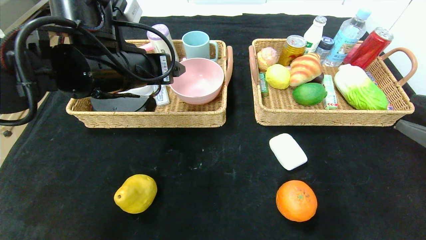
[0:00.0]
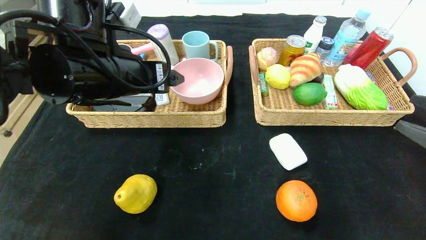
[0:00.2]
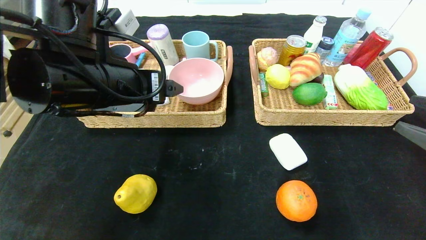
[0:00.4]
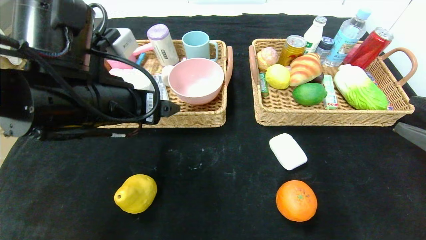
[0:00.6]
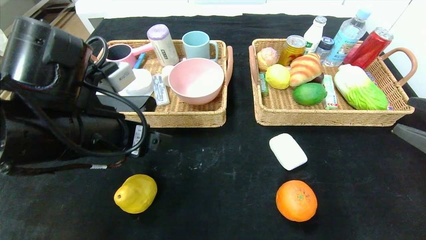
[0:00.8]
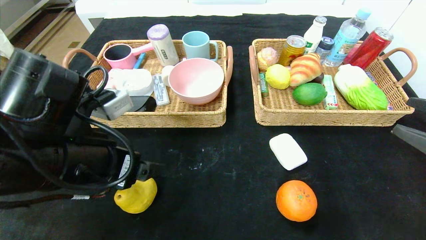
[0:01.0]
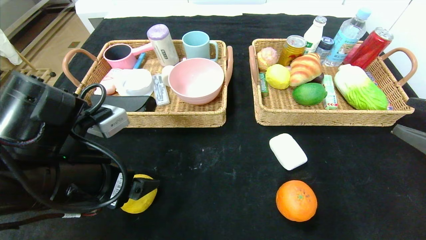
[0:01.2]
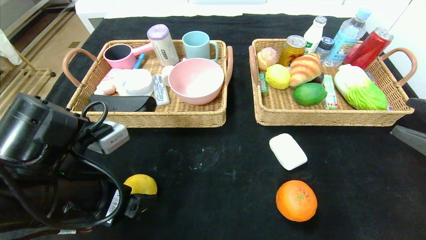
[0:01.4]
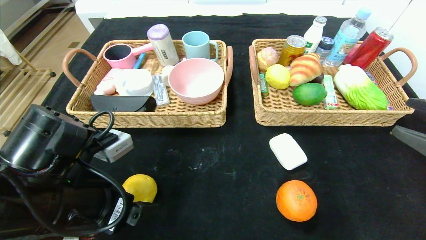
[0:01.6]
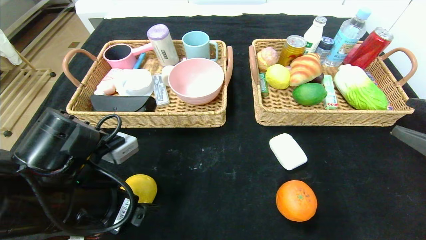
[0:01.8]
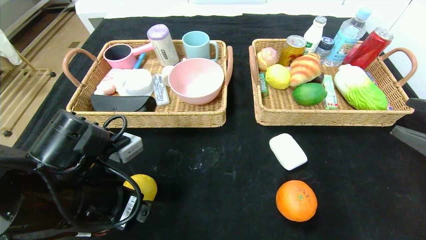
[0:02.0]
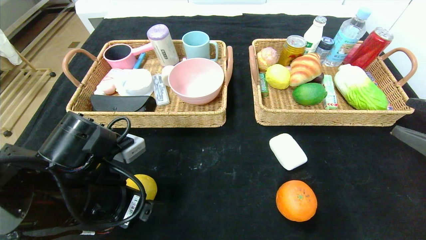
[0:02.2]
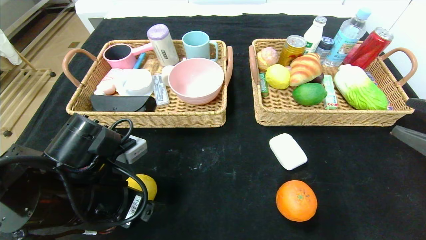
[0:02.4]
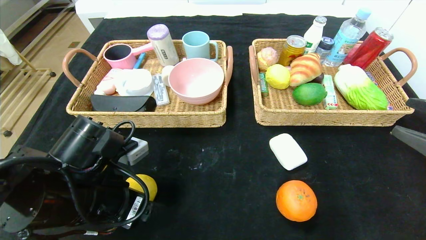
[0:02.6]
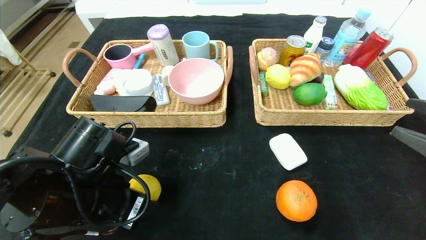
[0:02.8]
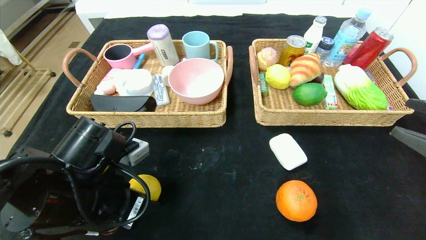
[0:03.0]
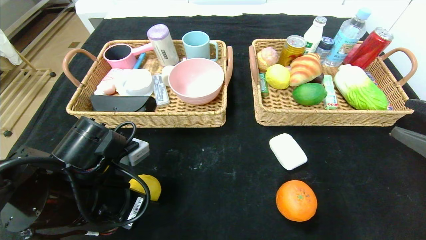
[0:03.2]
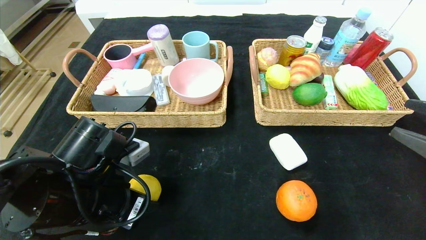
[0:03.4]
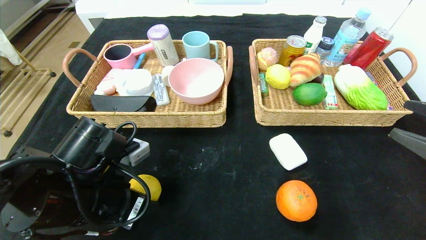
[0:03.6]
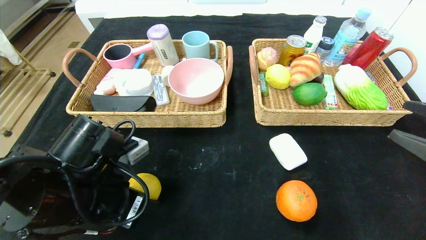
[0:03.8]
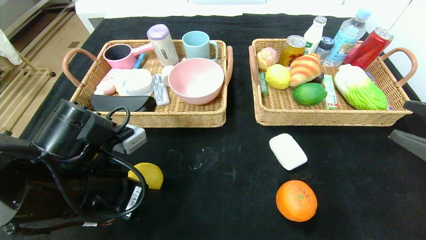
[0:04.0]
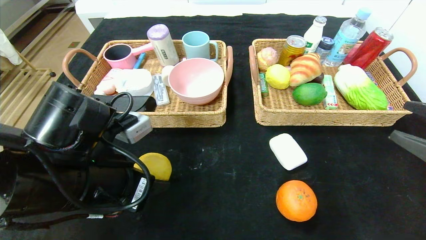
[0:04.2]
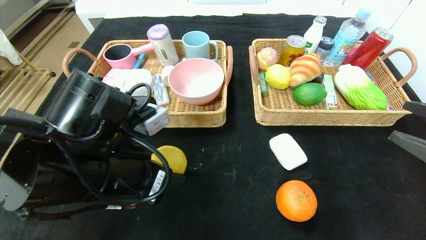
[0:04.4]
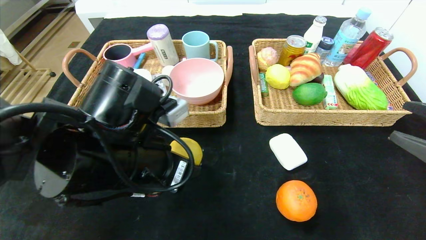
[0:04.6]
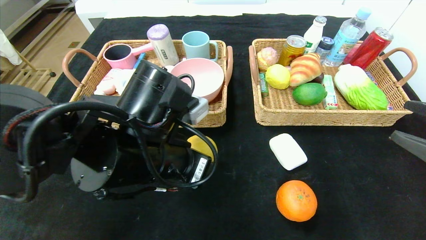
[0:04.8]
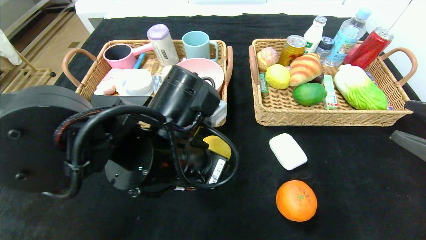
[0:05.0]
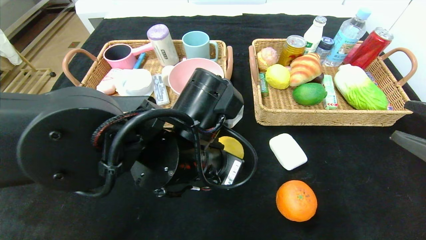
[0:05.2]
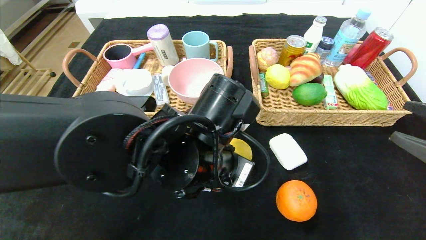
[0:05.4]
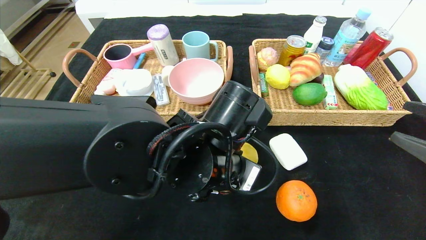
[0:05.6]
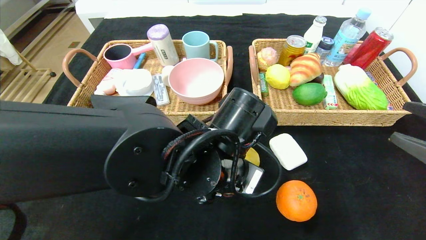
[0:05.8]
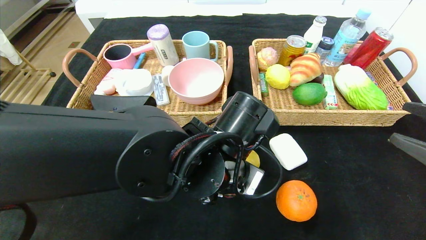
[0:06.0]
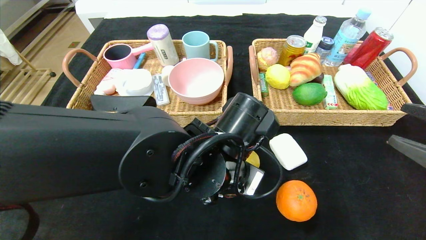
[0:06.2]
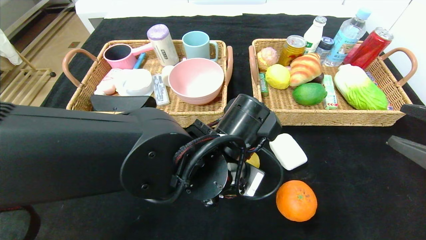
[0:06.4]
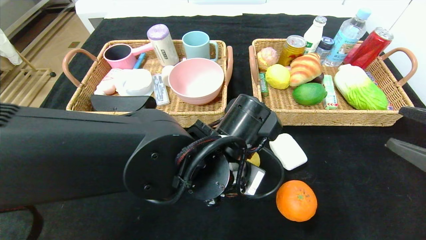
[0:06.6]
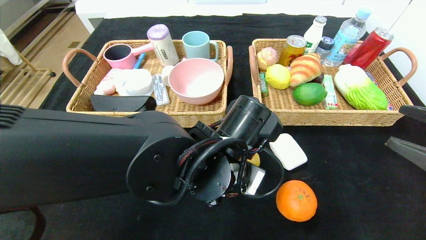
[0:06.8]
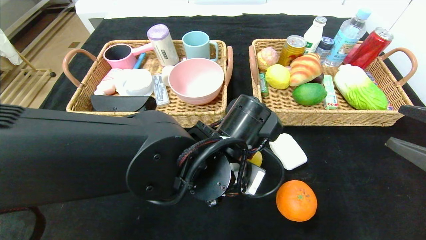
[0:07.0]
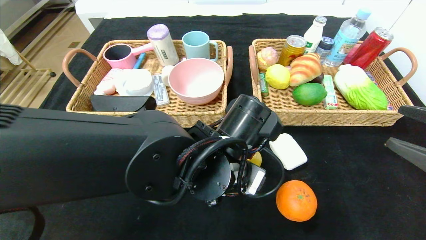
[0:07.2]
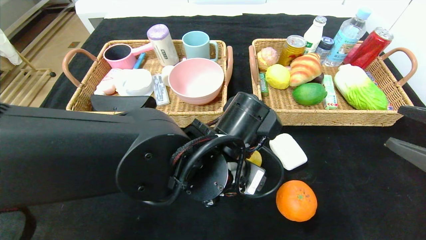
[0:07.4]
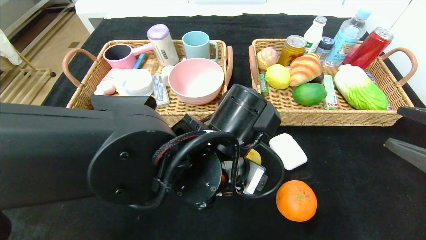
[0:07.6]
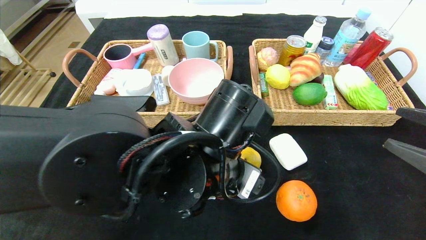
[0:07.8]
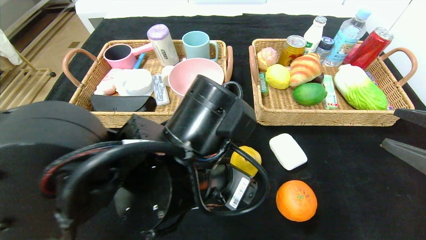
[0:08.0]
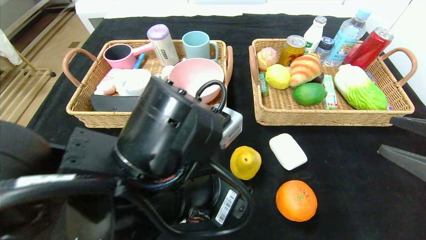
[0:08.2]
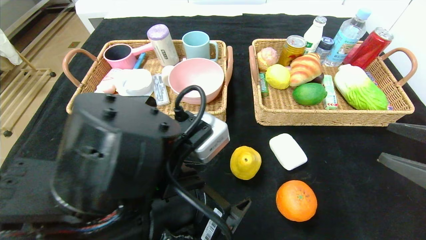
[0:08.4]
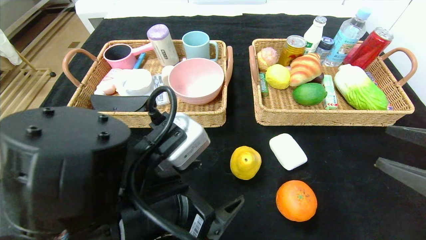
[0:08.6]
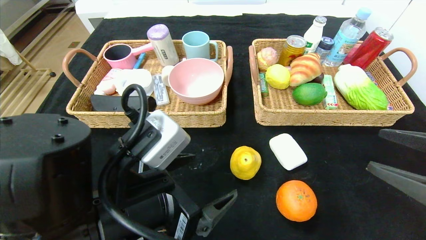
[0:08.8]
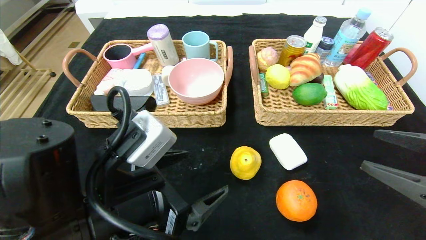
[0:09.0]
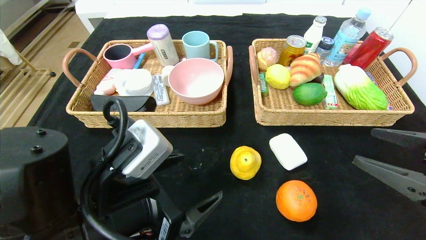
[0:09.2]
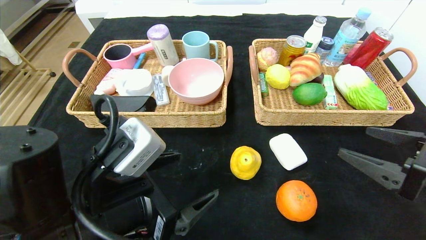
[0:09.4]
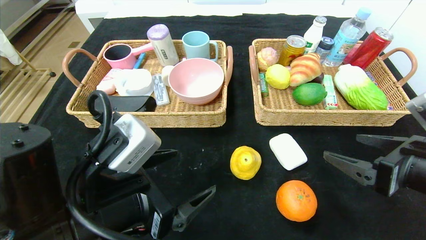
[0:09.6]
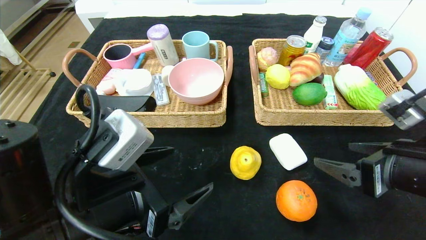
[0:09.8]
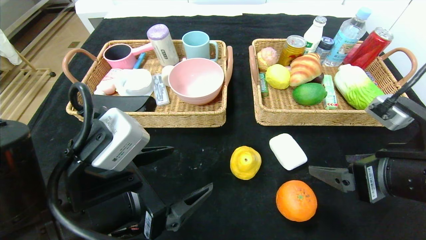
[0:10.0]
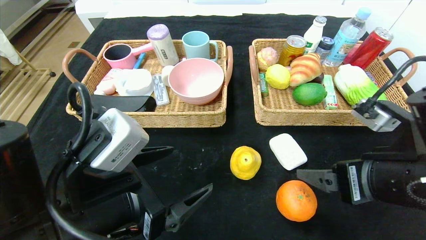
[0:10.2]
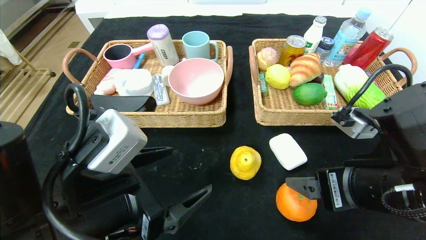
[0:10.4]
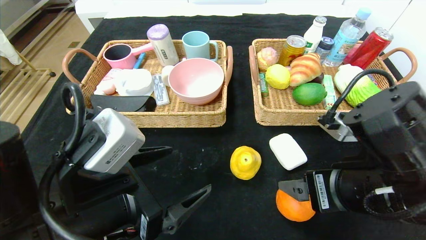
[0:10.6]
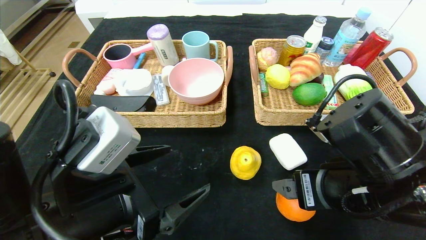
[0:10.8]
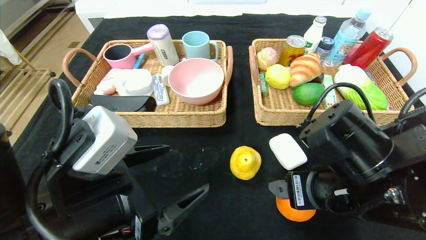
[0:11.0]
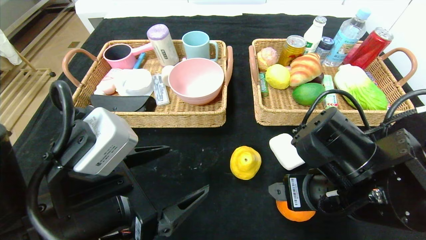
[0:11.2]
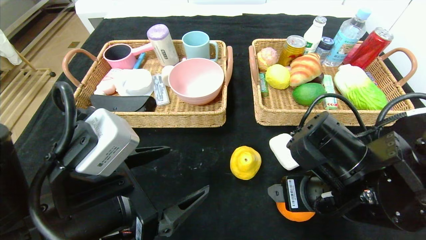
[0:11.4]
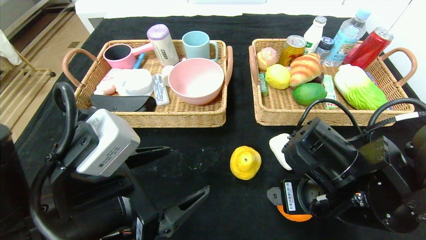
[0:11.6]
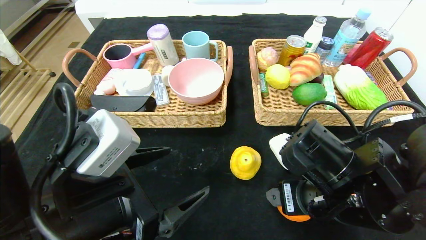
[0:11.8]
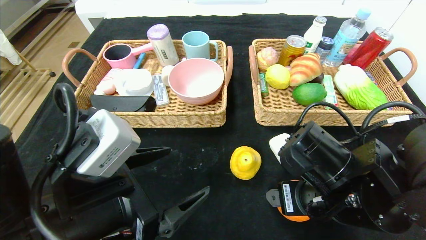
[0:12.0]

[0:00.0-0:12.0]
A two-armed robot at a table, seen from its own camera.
Step, 0:00.8 to 0:08.2: Place the pear in the center of the table.
0:00.0 to 0:01.6: The left gripper is displaced backward and downward by about 15 cm.
0:01.6 to 0:03.0: The left gripper closes its fingers.
0:03.0 to 0:04.4: The left gripper travels upward by about 5 cm.
0:04.4 to 0:06.0: The left gripper is displaced to the right by some 15 cm.
0:06.0 to 0:07.6: The left gripper opens its fingers.
0:07.6 to 0:09.0: The left gripper moves to the left and backward, roughly 15 cm.
0:09.0 to 0:10.4: The right gripper heads to the left, covering approximately 15 cm.
0:10.4 to 0:12.0: The right gripper shifts by about 5 cm.

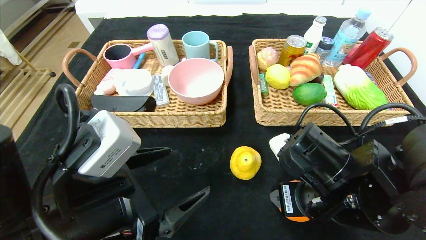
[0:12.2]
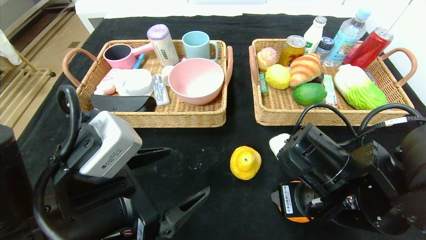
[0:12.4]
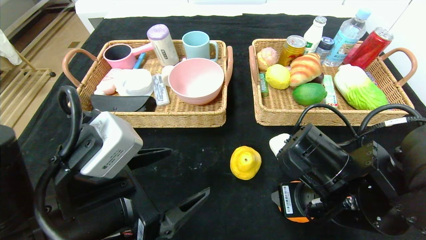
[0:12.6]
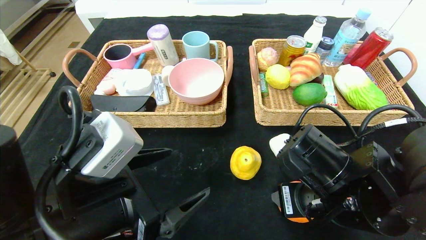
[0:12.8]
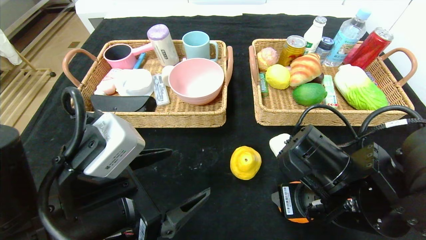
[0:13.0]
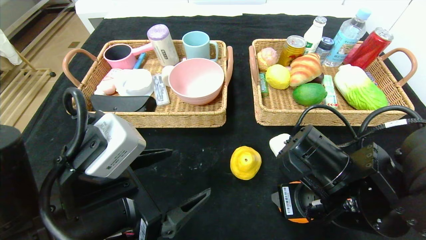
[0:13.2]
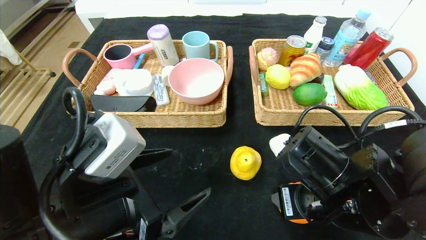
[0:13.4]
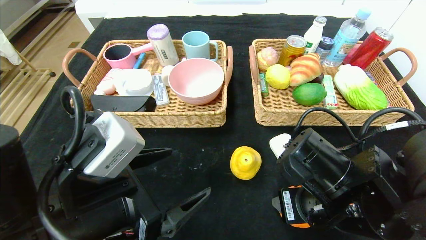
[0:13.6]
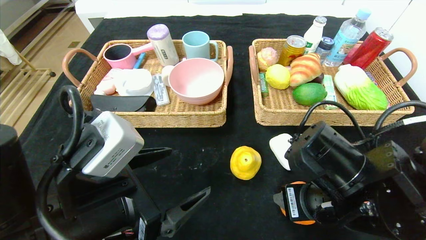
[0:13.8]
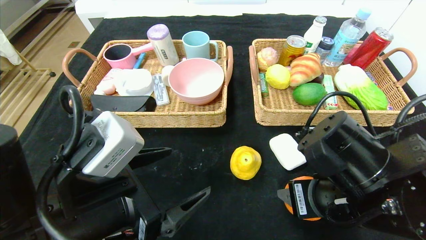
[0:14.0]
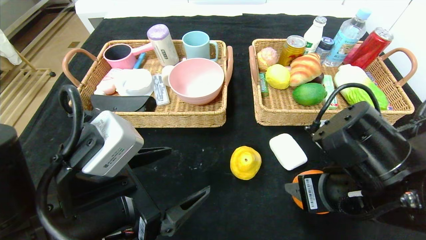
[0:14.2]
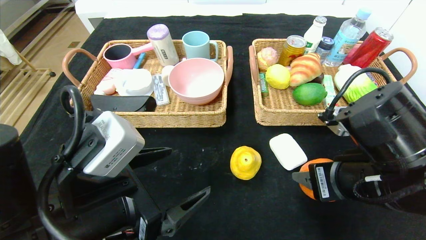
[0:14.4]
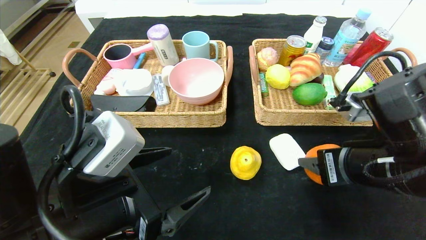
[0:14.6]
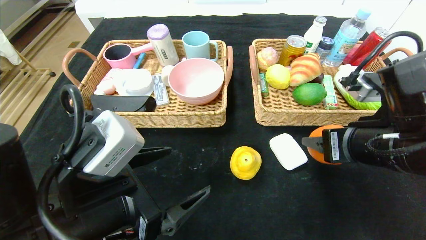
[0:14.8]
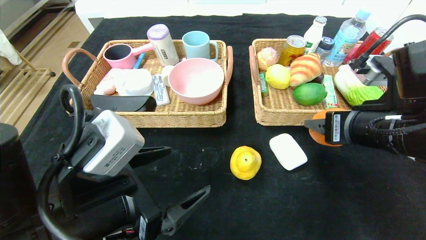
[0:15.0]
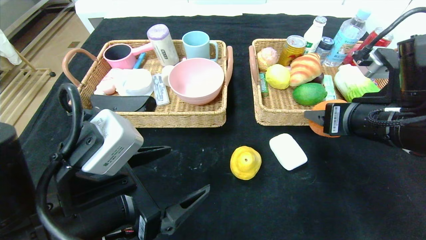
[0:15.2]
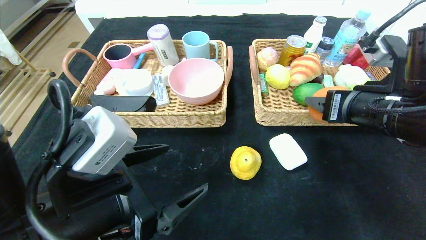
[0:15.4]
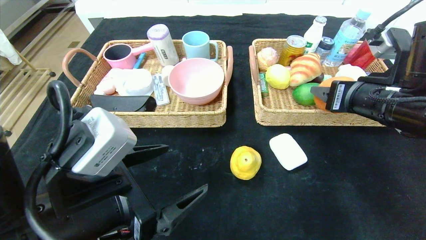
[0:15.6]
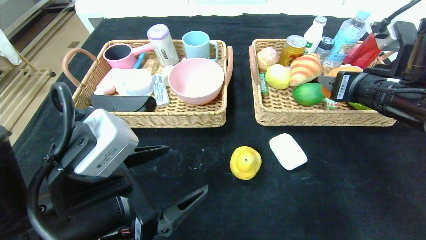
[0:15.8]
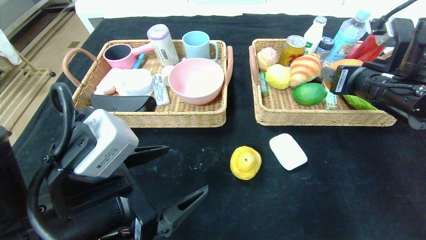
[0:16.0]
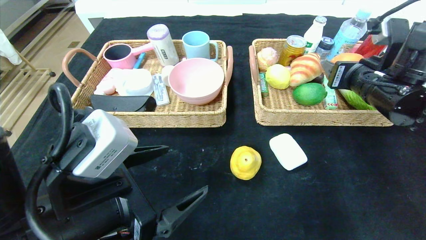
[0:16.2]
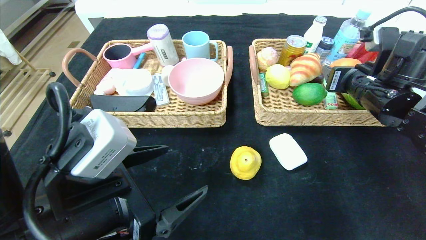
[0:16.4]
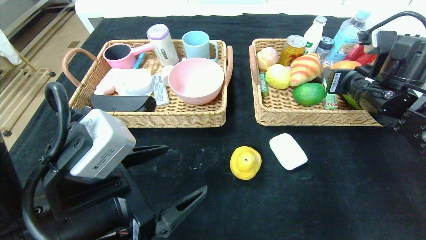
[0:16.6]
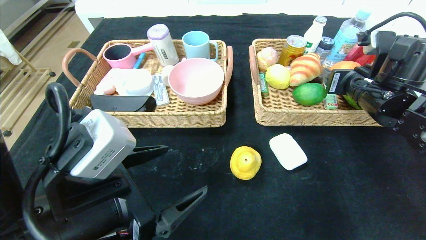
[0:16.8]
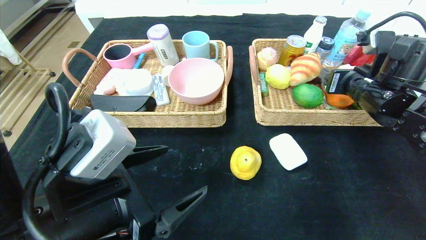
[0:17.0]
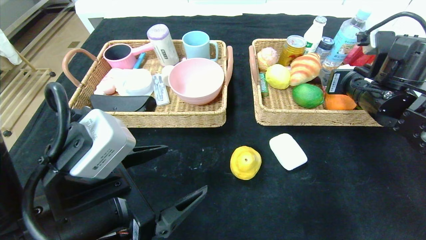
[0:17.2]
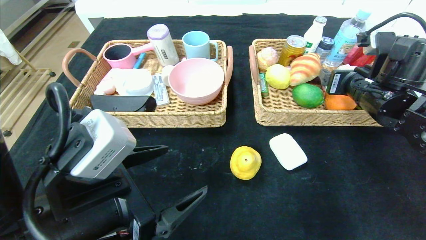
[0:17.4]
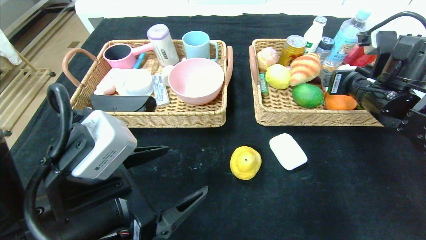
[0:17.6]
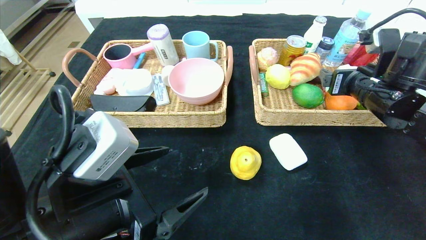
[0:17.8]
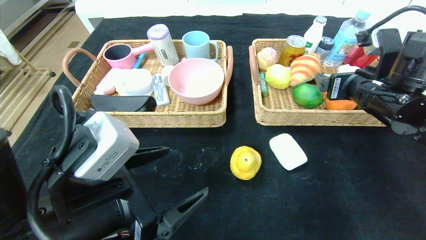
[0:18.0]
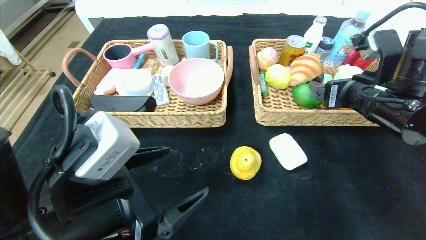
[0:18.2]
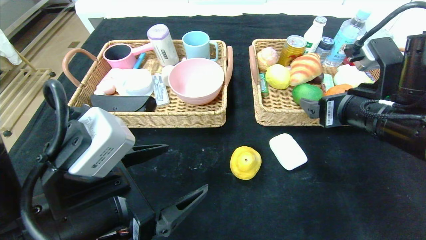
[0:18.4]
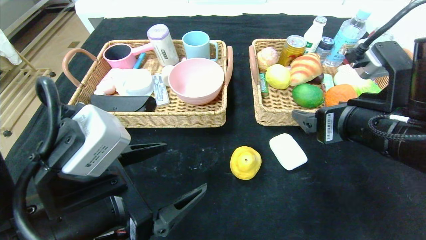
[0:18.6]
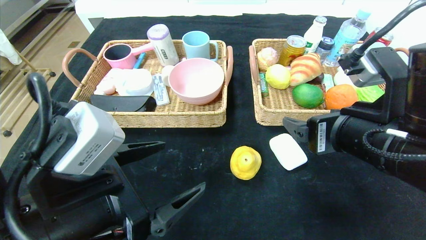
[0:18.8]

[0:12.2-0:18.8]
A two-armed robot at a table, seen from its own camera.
Step, 0:12.2 to 0:18.6: Pick up the orange and put it in the right basket.
0:12.2 to 0:13.8: Both grippers stay put.
0:13.8 to 0:15.4: The right gripper is displaced upward, to the right and forward by roughly 10 cm.
0:15.4 to 0:17.2: The right gripper heads forward, covering about 10 cm, and opens its fingers.
0:17.2 to 0:18.8: The right gripper moves backward and to the left, approximately 15 cm.
